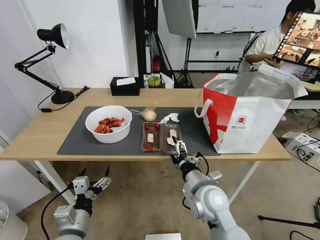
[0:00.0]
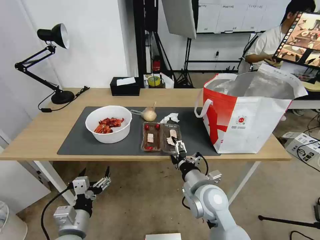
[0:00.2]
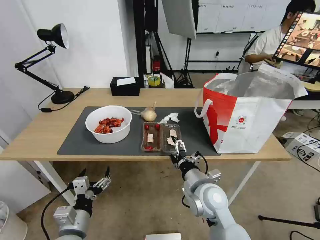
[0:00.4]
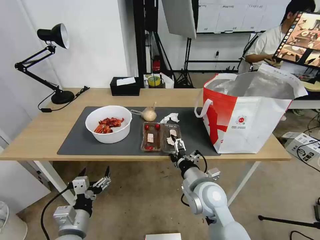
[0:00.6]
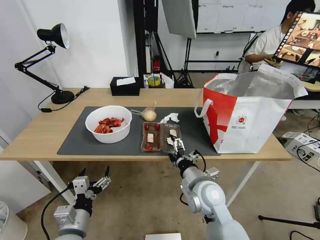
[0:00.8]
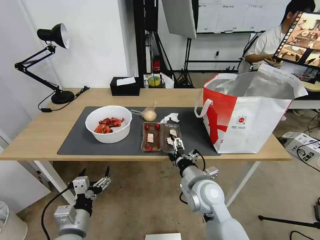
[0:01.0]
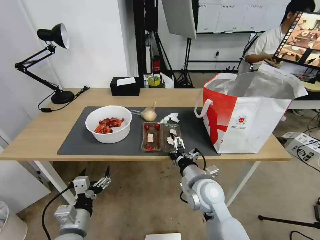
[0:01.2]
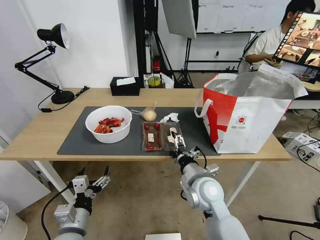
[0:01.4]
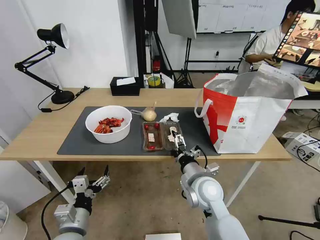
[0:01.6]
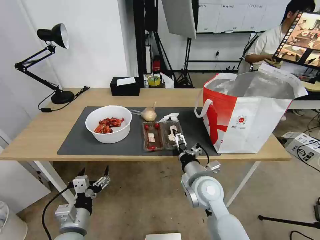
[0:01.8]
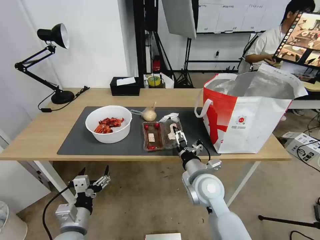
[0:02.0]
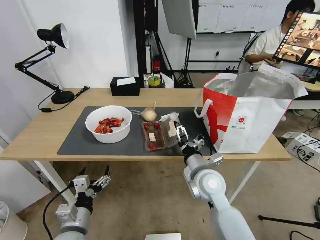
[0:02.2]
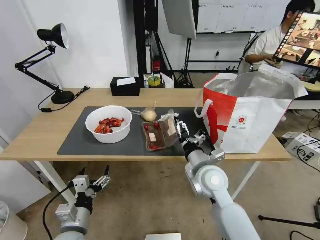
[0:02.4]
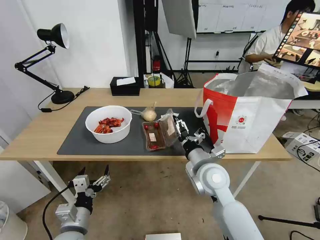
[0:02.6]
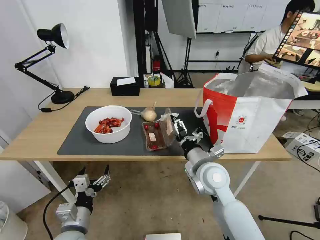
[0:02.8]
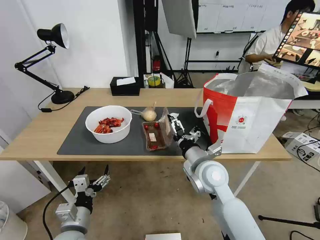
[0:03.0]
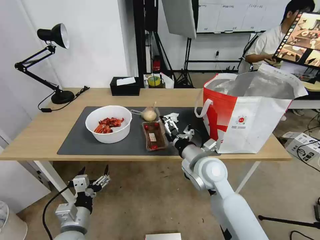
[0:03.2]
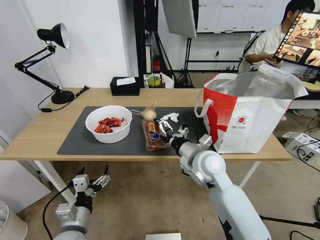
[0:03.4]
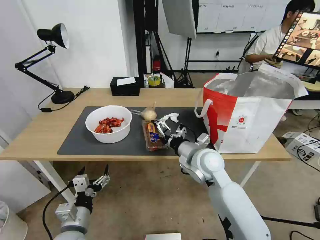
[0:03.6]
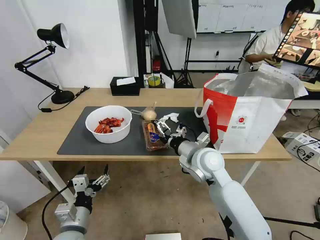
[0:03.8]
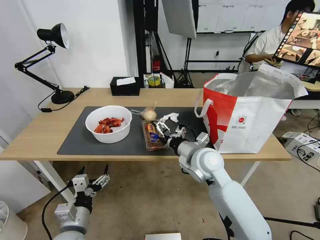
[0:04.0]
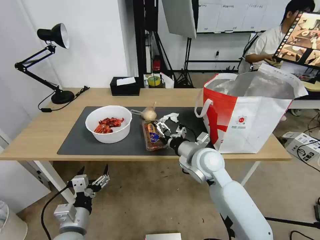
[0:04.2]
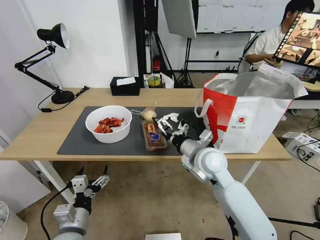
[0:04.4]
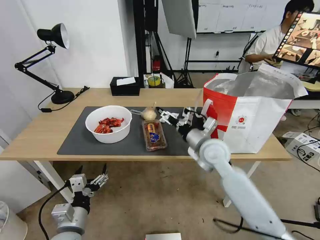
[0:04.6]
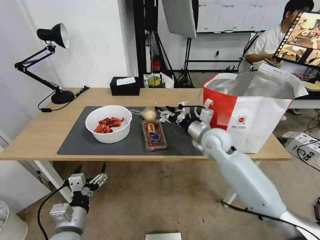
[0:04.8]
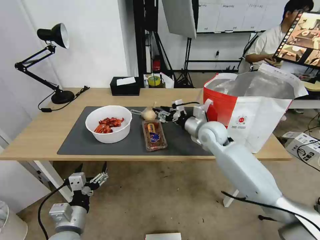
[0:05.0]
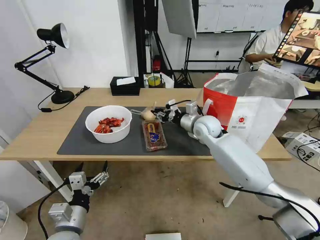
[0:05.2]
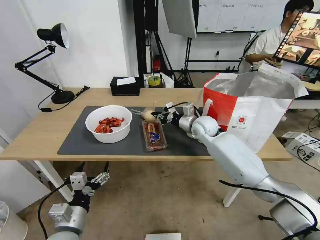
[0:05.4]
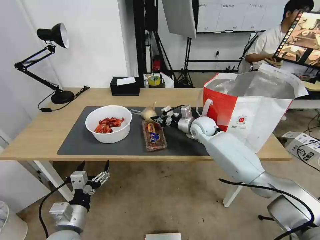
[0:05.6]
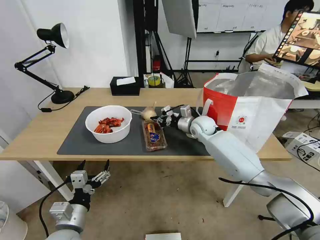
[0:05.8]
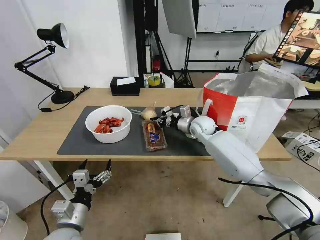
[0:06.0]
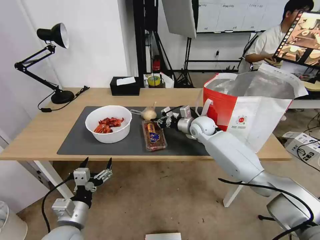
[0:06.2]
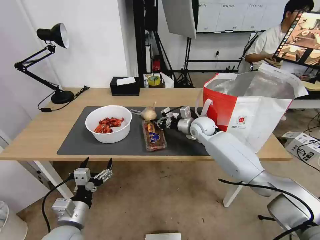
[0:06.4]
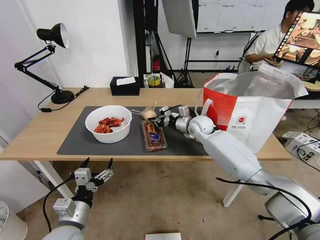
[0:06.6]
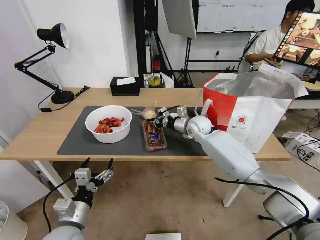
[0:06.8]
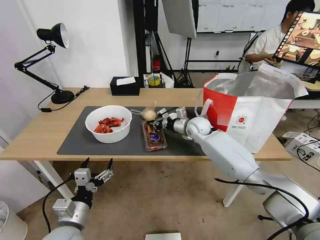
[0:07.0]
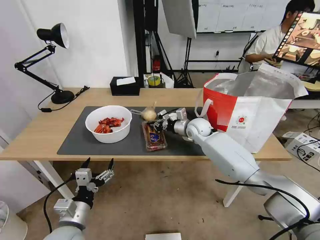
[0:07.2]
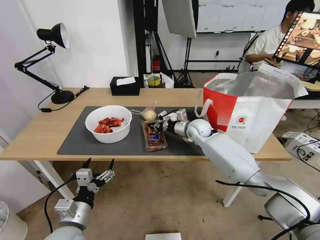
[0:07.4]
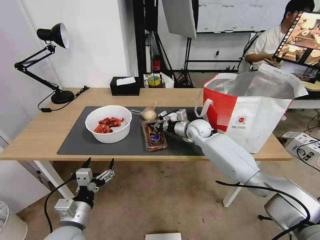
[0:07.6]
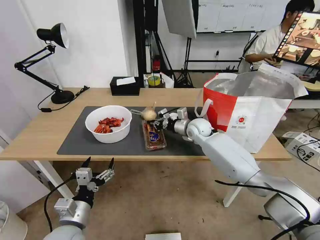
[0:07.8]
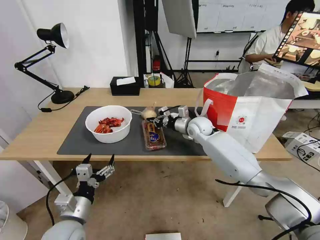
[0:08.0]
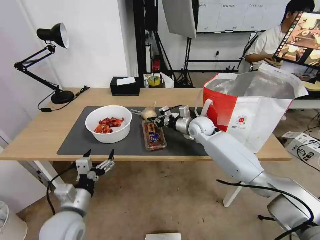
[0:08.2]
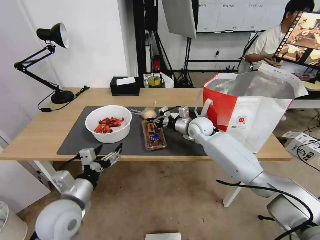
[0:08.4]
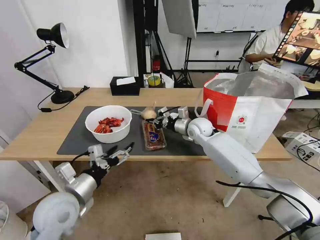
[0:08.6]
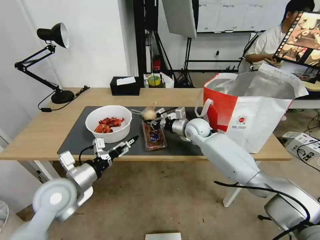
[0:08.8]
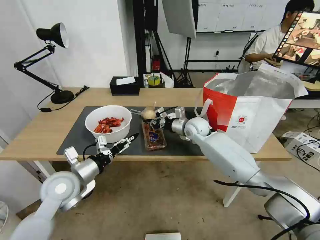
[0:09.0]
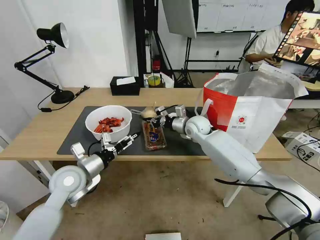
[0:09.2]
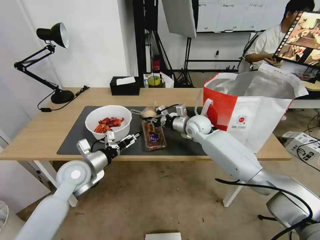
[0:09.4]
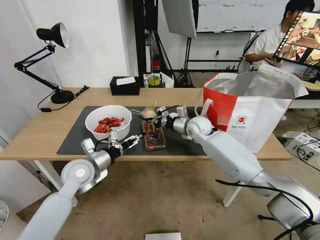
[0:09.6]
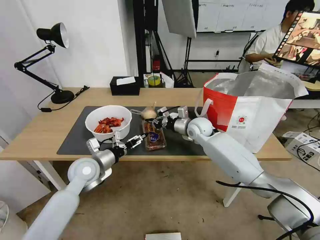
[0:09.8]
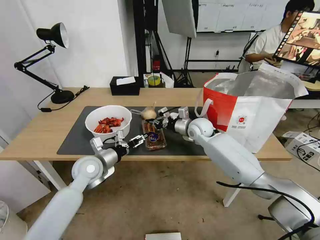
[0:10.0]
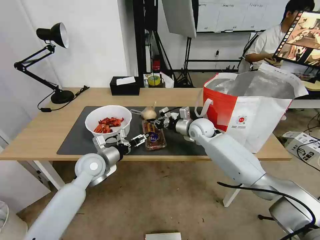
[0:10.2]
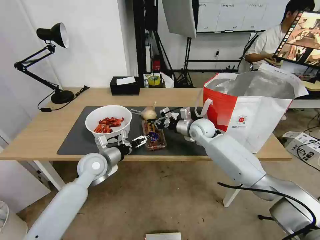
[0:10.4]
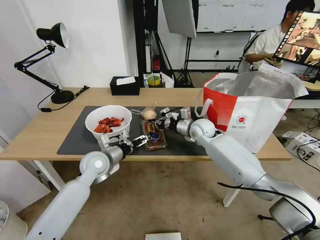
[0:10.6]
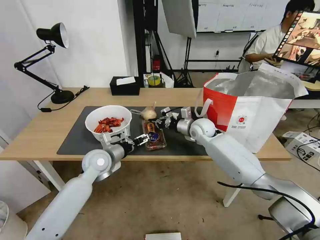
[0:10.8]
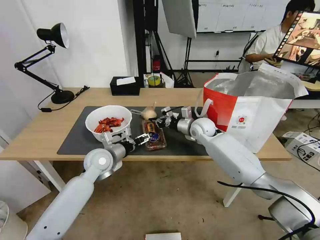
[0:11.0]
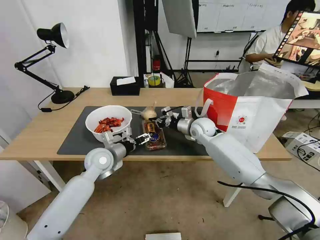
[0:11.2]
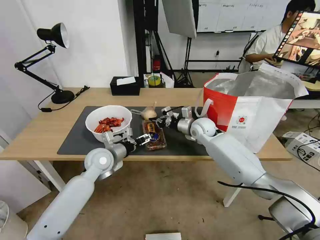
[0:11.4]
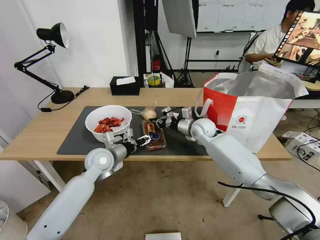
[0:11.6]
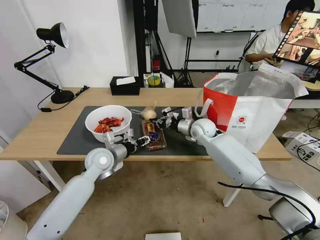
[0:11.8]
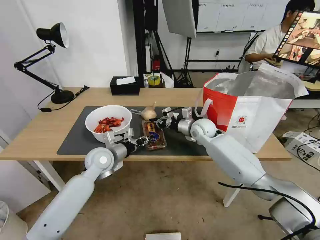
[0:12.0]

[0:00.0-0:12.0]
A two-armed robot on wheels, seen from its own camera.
Task of the whole recording: Pick up the trash from the table and place it into the takeout bag.
0:00.0 to 0:01.6: The grippers move only a little.
0:01.6 to 0:03.0: The right gripper changes place by roughly 5 cm.
0:04.4 to 0:06.0: The right gripper heads forward, covering approximately 20 cm, and closes up.
0:06.0 to 0:07.6: There are only small adjustments of the grippers.
0:07.6 to 0:09.0: The left gripper shifts roughly 15 cm forward and upward.
0:09.0 to 0:10.4: The left gripper travels forward by approximately 10 cm.
0:10.4 to 0:12.0: The left gripper closes its fingers.

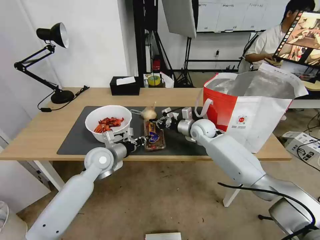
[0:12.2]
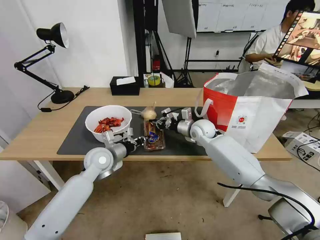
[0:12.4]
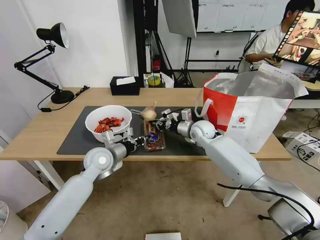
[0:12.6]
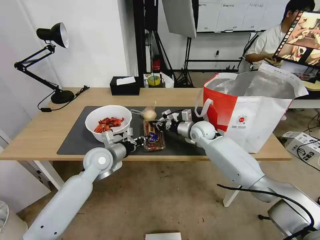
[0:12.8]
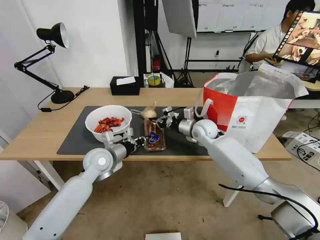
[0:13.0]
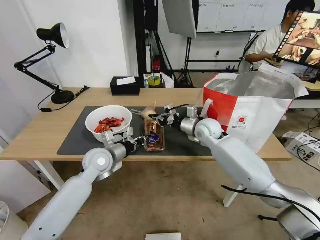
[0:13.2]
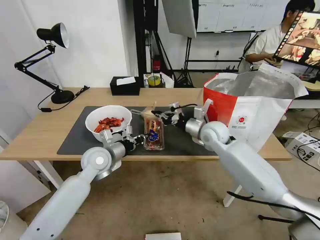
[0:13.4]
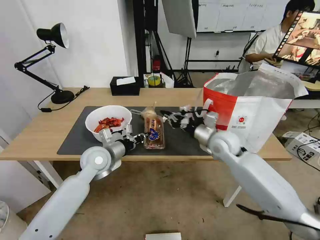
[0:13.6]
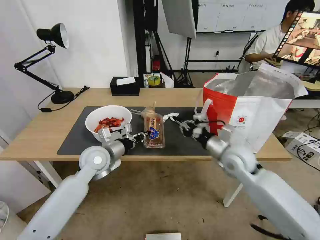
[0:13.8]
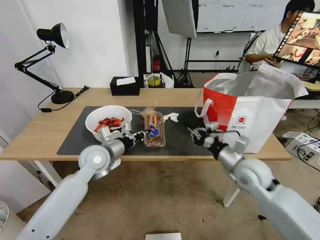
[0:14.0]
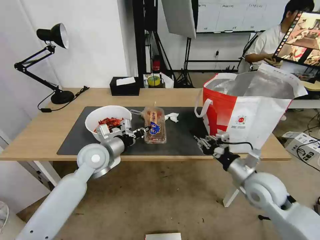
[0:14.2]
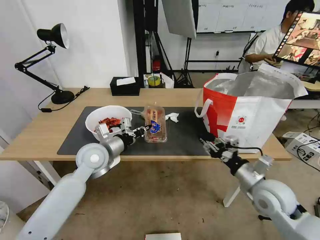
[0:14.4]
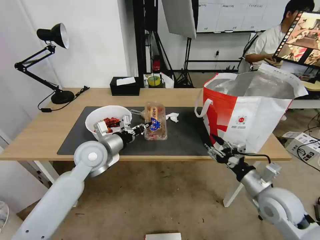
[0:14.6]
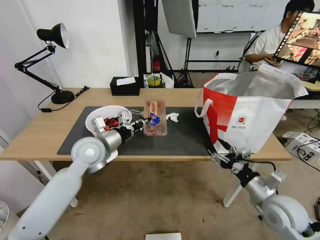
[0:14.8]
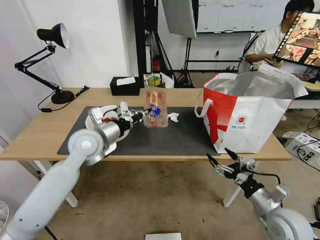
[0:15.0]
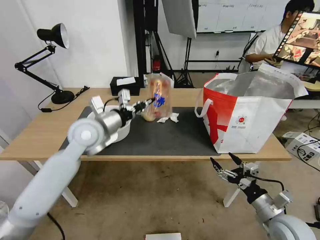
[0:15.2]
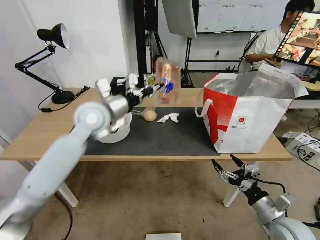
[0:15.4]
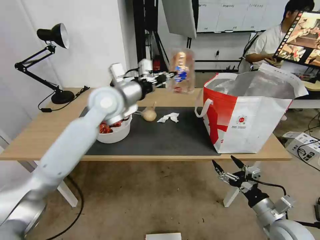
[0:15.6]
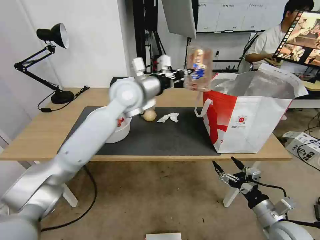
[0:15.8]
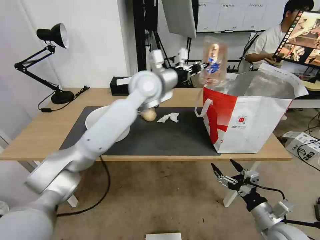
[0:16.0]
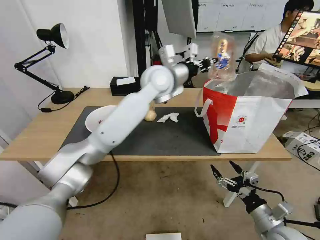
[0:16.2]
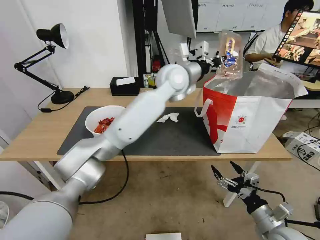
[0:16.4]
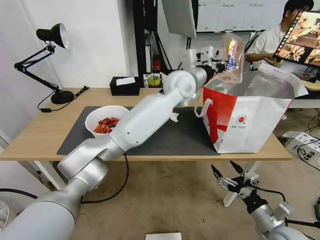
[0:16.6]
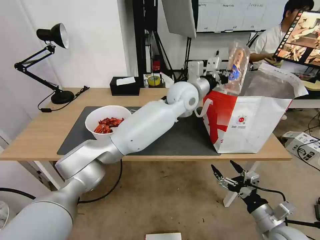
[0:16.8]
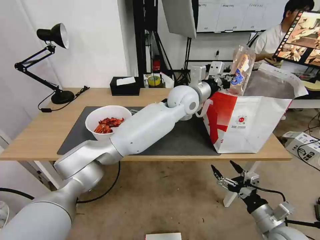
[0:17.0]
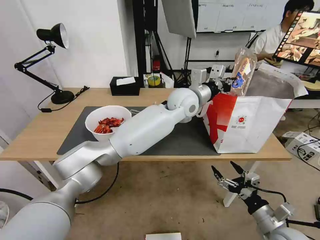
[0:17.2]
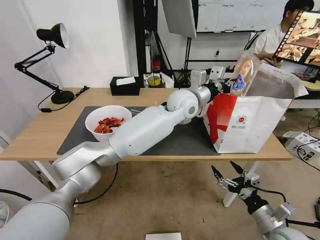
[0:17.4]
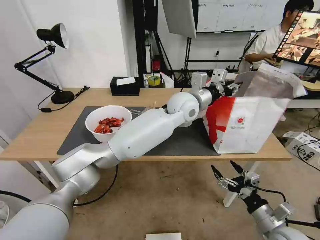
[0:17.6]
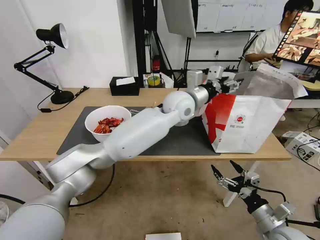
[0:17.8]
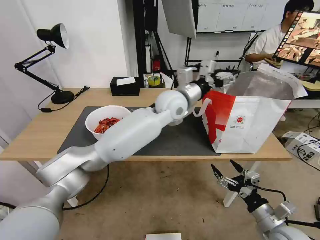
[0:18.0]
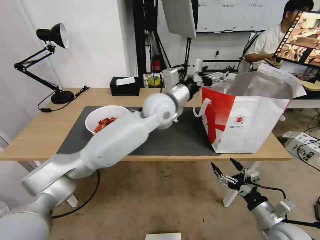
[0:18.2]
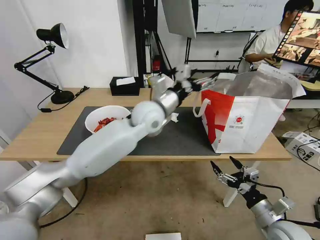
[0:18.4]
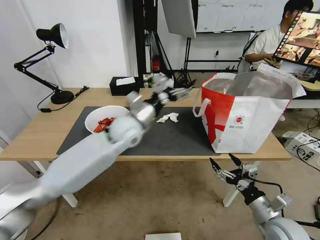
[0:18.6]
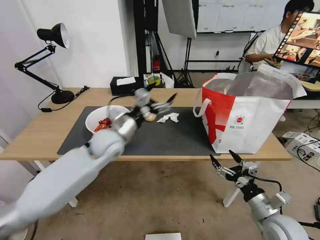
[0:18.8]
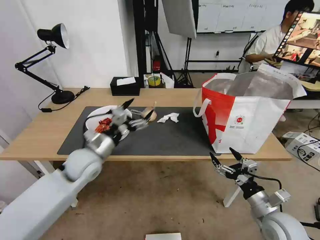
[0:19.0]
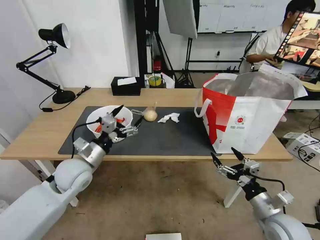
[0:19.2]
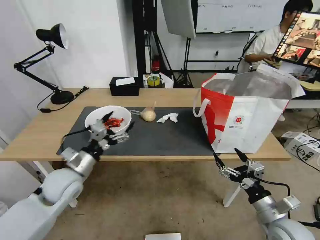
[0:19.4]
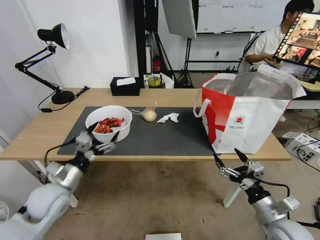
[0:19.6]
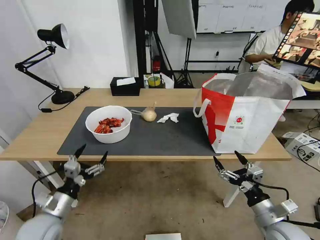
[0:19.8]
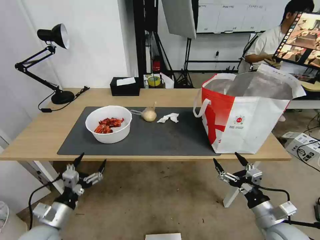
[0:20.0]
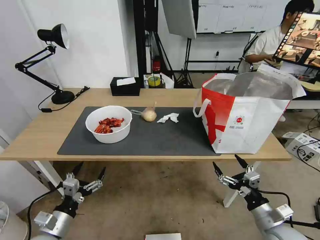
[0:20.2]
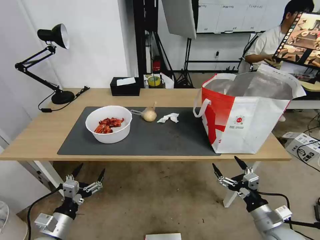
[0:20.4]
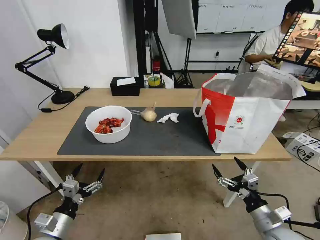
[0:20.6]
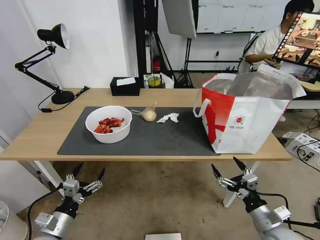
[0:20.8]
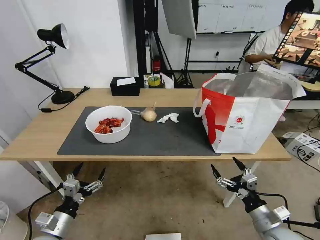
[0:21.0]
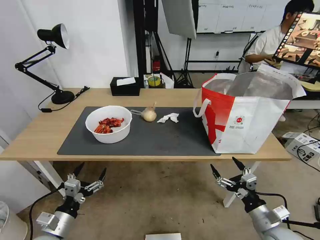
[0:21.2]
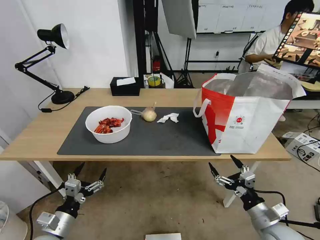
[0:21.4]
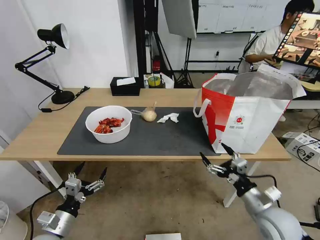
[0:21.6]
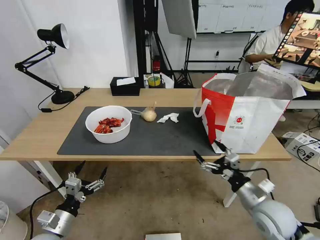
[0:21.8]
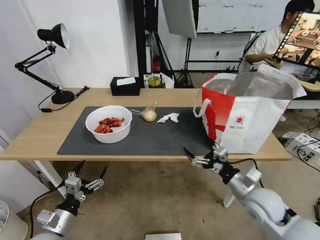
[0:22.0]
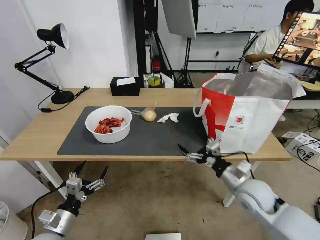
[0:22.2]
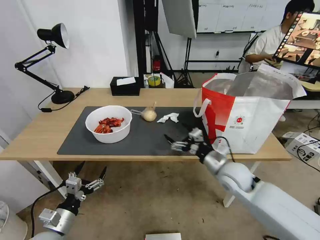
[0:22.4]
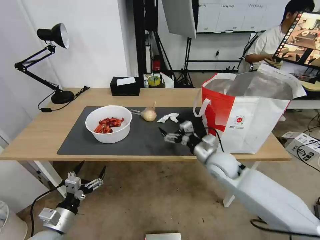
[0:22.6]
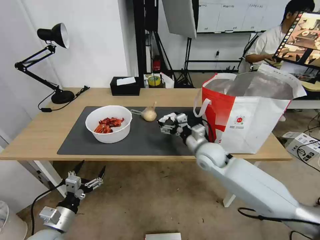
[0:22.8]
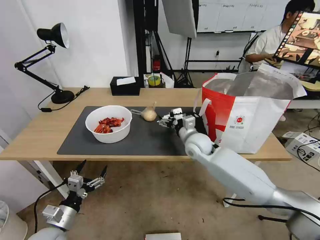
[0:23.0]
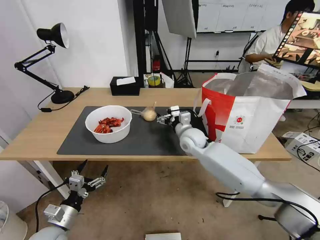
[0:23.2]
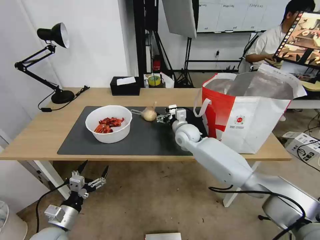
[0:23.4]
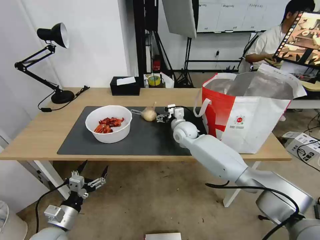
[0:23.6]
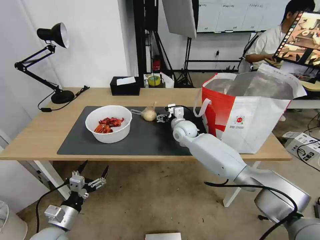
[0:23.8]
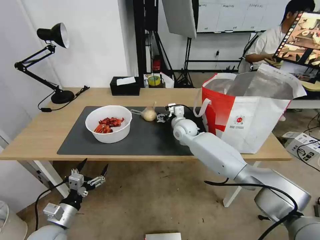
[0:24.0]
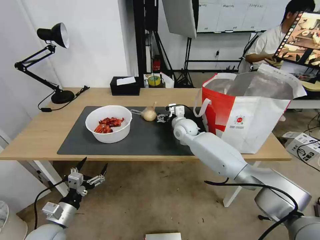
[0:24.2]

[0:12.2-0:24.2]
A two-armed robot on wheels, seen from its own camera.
Task of the whole recording: Pick up the trash from the table and place it into the takeout bag.
0:12.2 to 0:13.8: The right gripper heads backward and to the right, covering about 20 cm.
0:13.8 to 0:15.2: The right gripper is displaced backward, to the right and downward by about 25 cm, and opens its fingers. The left gripper shifts some 10 cm upward.
0:15.2 to 0:16.6: The left gripper goes some 30 cm to the right and forward.
0:16.6 to 0:18.2: The left gripper is displaced to the left by approximately 5 cm, and opens.
0:18.2 to 0:19.8: The left gripper shifts roughly 50 cm to the left, backward and downward.
0:19.8 to 0:21.2: The left gripper heads backward and downward, covering about 10 cm.
0:21.2 to 0:22.6: The right gripper is displaced forward and to the left by about 25 cm.
0:22.6 to 0:24.2: The right gripper shifts approximately 20 cm forward and to the left.
